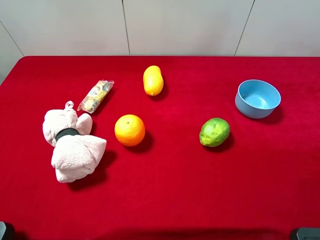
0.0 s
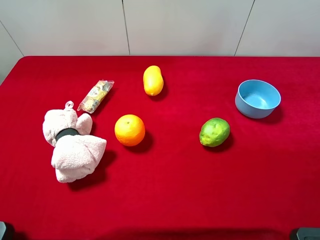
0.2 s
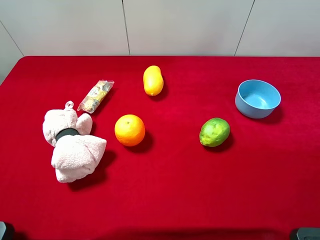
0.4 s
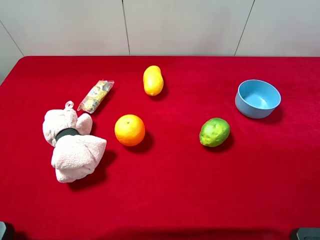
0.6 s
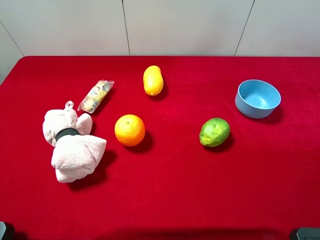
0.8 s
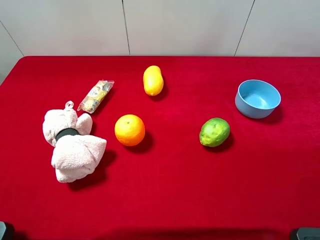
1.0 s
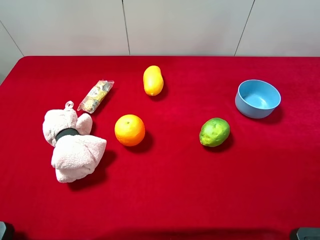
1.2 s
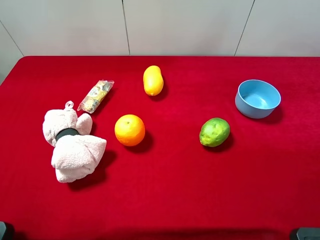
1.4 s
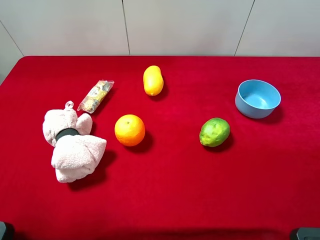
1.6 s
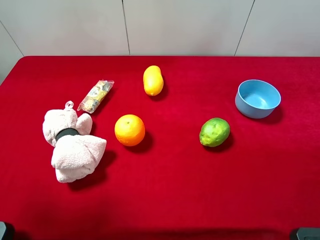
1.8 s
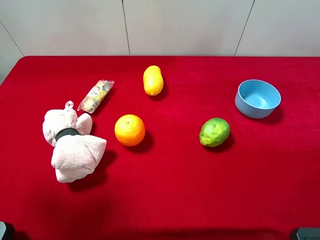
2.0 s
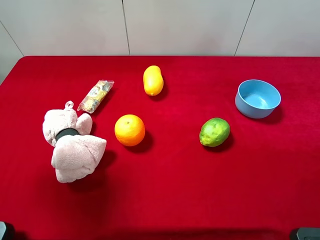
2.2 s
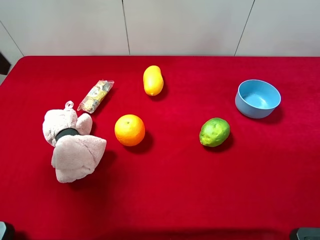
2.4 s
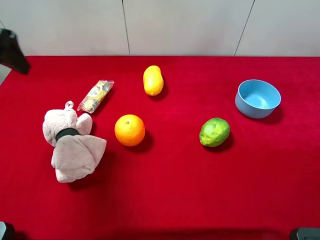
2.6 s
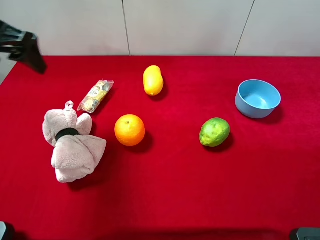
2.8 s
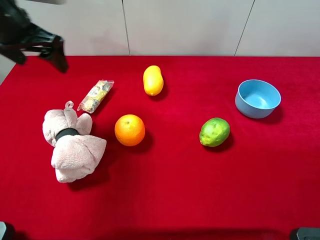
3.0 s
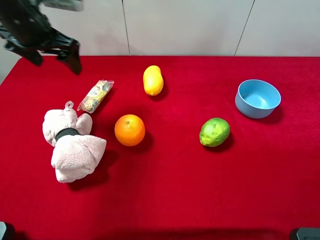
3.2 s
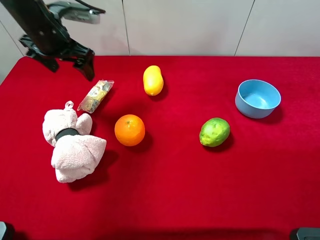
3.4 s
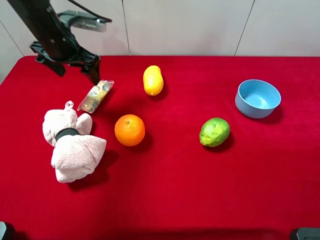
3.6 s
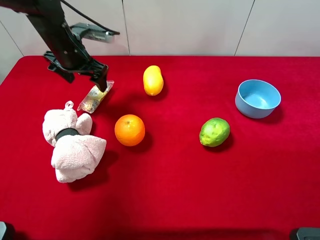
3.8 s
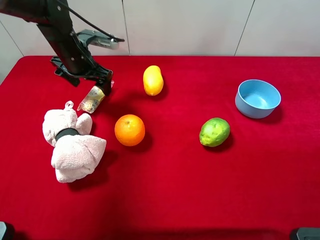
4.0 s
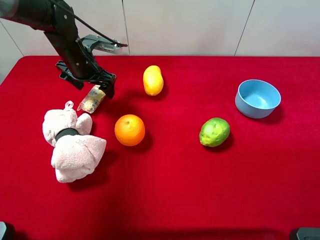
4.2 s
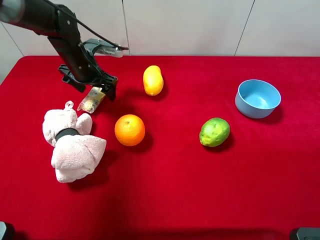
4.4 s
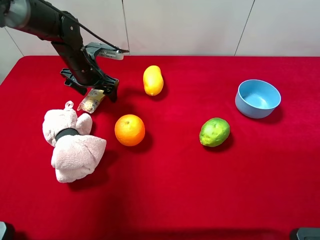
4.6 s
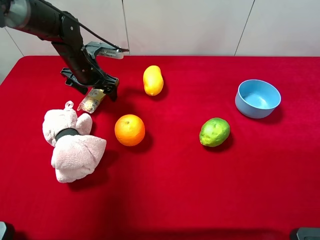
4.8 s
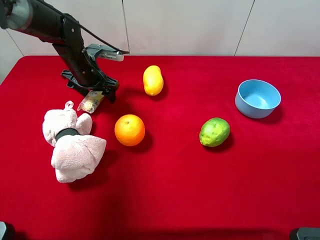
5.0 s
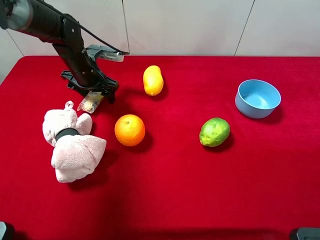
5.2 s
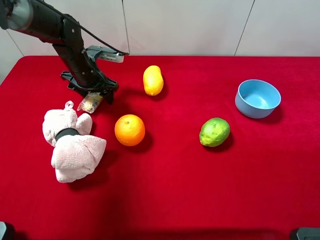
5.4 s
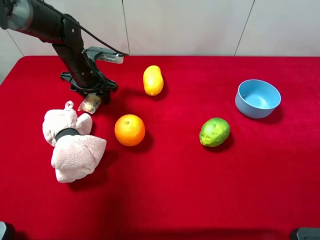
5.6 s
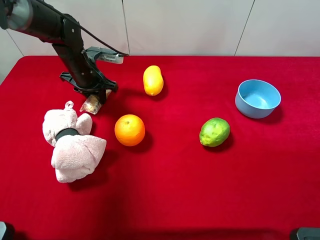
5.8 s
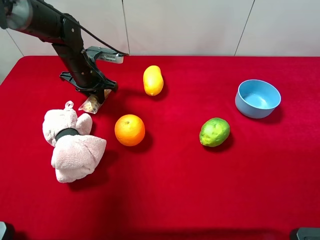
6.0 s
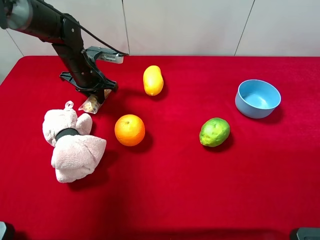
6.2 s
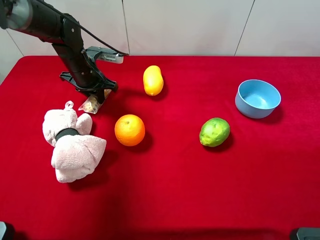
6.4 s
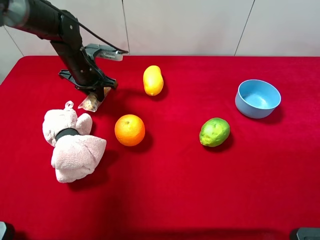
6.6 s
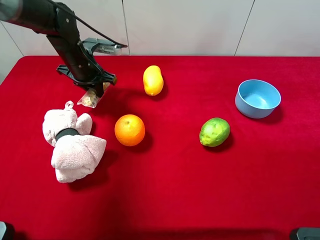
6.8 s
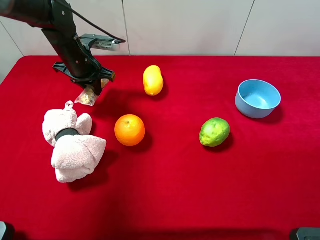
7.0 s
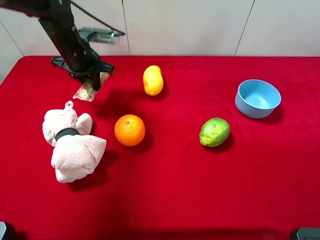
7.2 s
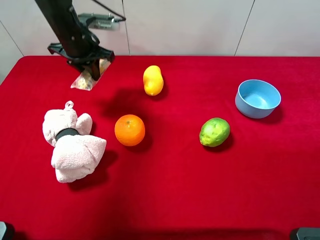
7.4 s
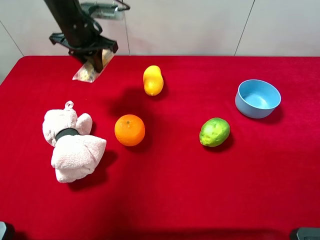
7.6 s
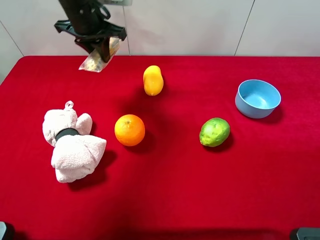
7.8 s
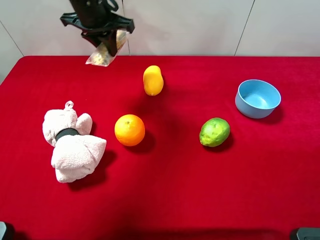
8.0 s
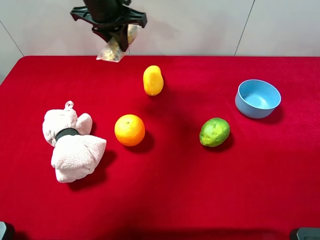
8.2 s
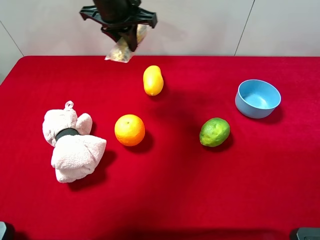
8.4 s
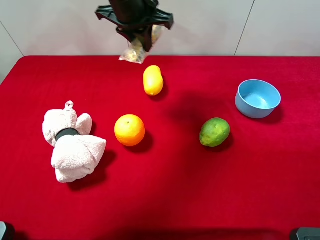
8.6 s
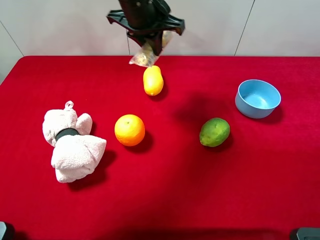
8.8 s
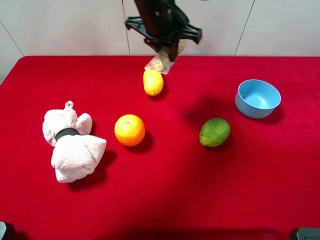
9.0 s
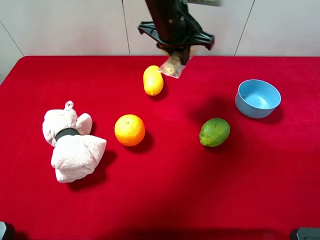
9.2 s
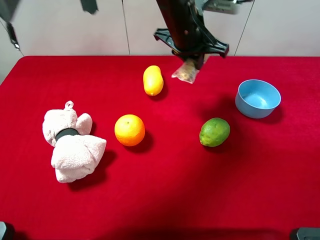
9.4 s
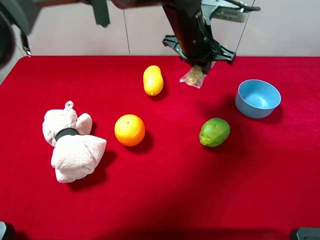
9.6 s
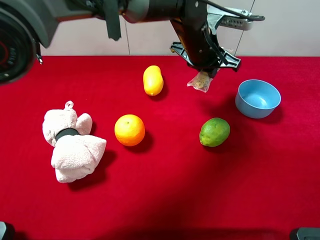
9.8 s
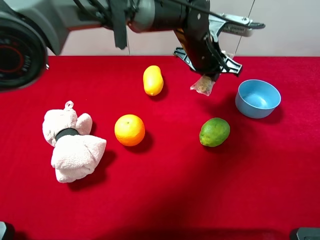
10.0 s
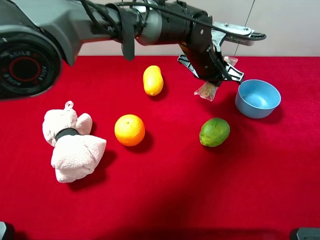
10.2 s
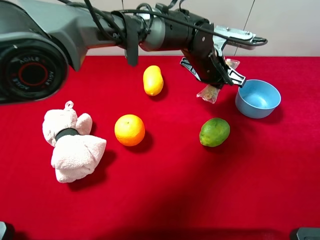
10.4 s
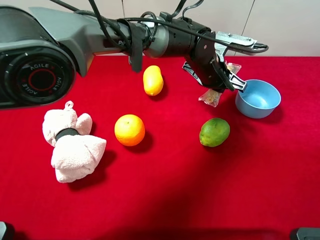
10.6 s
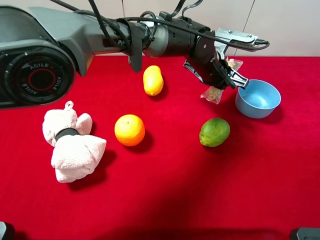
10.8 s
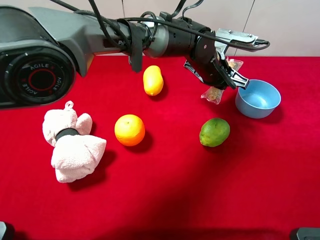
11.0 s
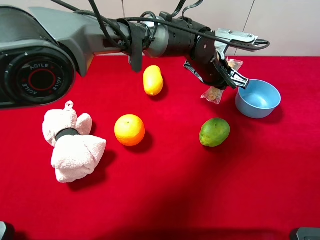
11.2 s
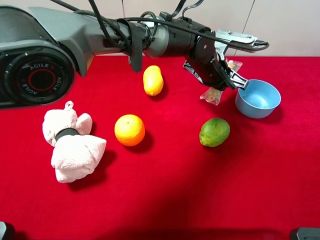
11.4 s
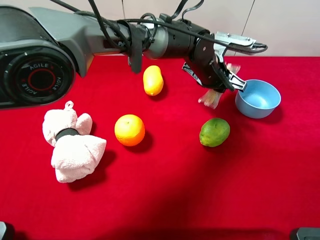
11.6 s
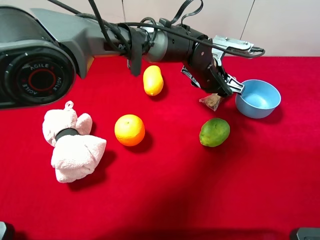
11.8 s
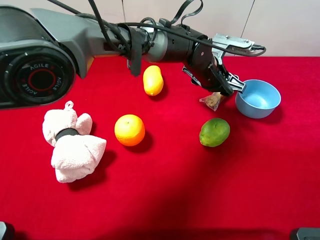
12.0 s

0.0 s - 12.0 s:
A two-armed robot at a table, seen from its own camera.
Task of the whole recording: the gripper move the object.
Step, 0.0 s - 5.8 s: Grasp the chocolate with the left gripper.
1.6 s - 3.0 s: The left gripper heads forward, covering roughly 25 cm.
3.0 s - 4.4 s: The left gripper is displaced downward, forward and to the right by some 15 cm.
4.4 s - 6.0 s: The left gripper closes its fingers.
6.0 s - 7.6 s: The left gripper travels upward by about 10 cm.
7.6 s - 9.0 s: The left gripper goes about 15 cm to the right.
9.0 s - 10.4 s: The left gripper travels downward and to the right by approximately 15 cm.
10.4 s - 12.0 s: The left gripper opens its fingers.

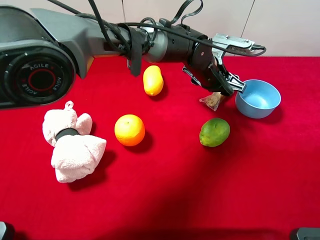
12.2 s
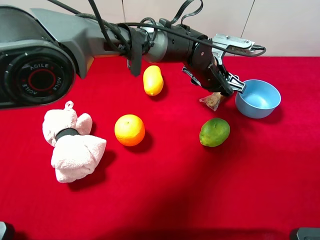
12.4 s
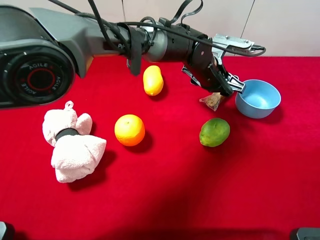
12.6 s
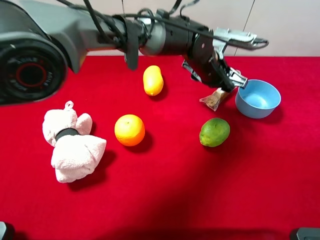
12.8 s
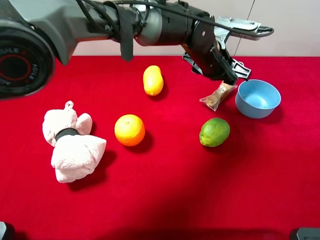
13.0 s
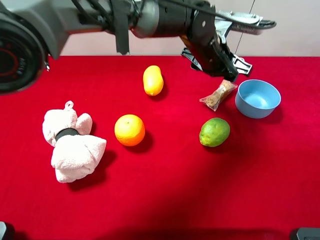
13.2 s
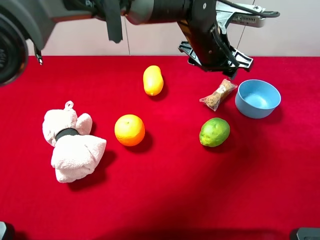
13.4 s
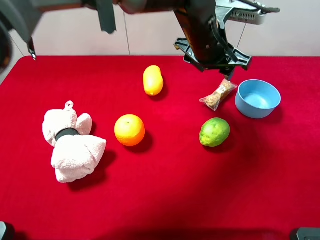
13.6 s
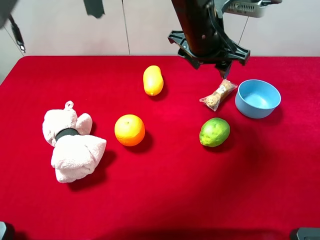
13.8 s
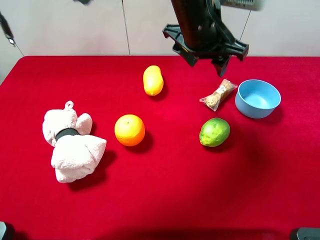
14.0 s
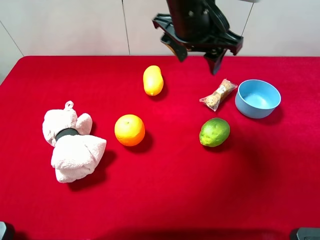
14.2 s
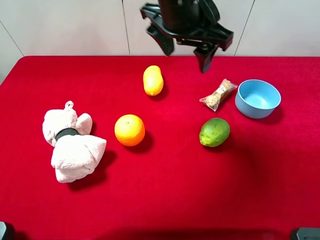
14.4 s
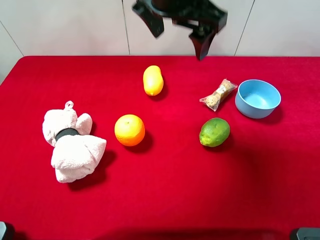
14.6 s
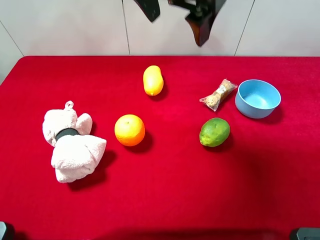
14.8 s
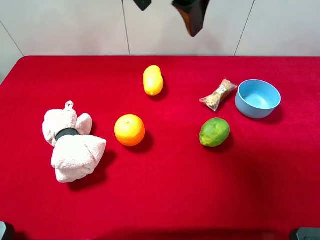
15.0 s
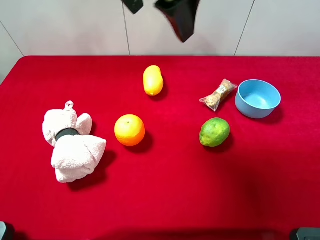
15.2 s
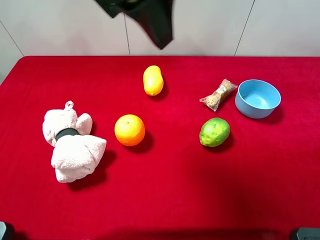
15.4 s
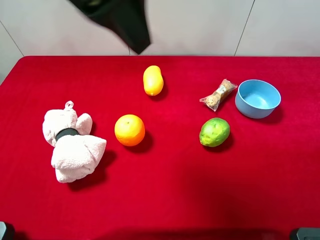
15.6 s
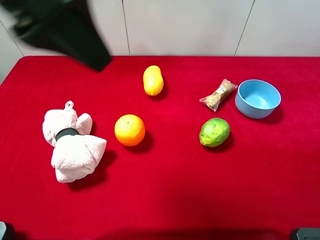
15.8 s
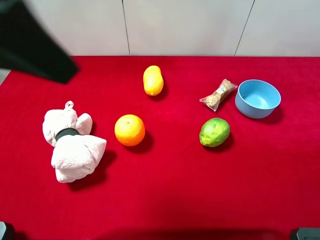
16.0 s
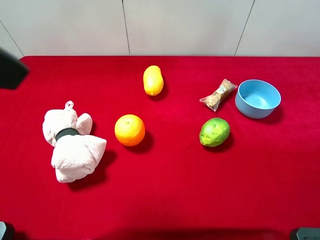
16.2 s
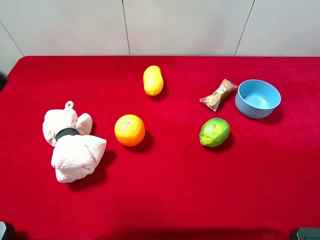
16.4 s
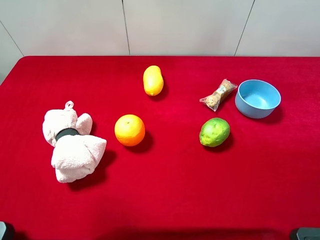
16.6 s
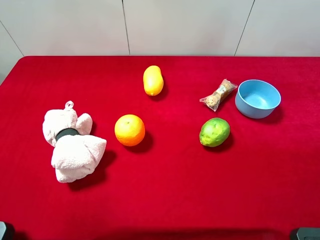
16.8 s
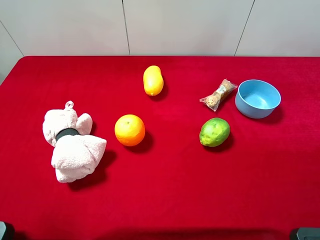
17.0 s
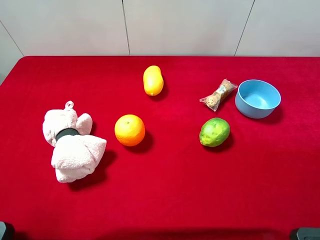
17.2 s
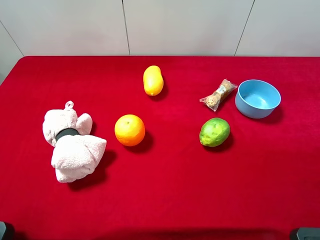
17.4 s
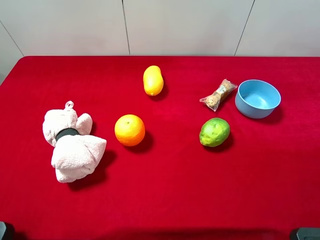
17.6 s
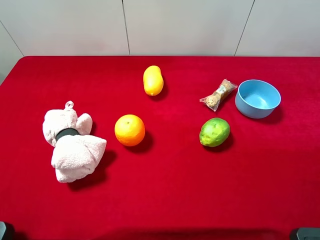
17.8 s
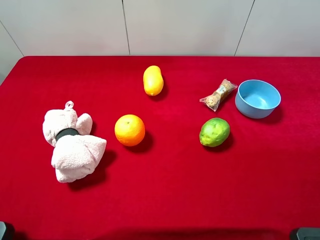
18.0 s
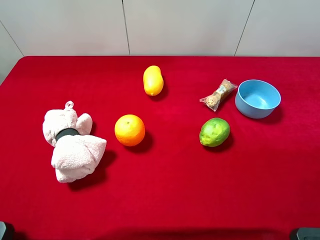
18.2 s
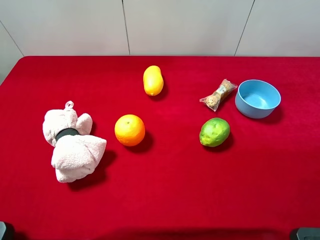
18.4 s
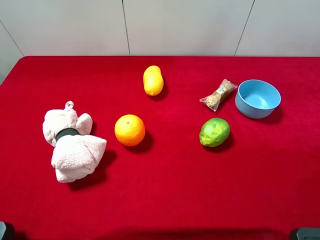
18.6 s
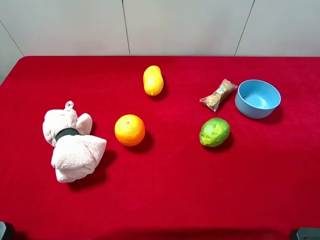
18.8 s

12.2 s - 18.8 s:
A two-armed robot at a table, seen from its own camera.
Task of the whole recording: the gripper move the object.
12.2 s - 13.8 s: The left gripper shifts roughly 10 cm upward.
13.8 s - 15.4 s: The left gripper travels upward, to the left and backward by about 25 cm, and opens its fingers.
15.4 s - 17.2 s: The left gripper heads to the left and backward, covering roughly 30 cm.

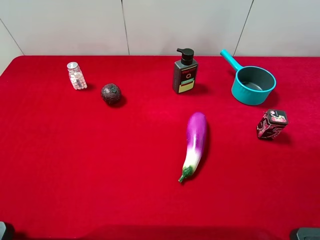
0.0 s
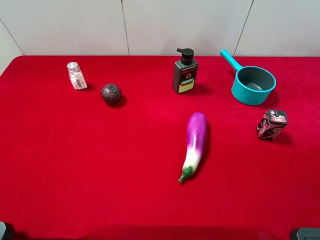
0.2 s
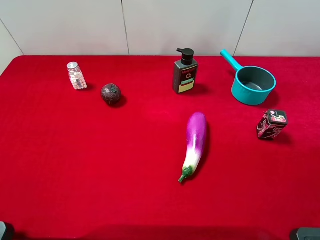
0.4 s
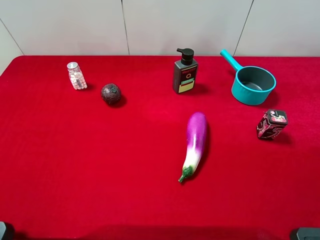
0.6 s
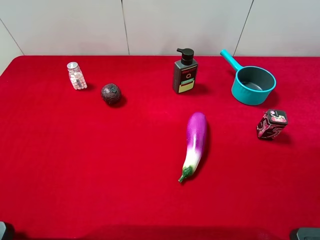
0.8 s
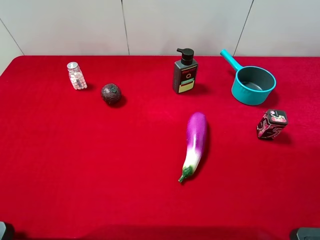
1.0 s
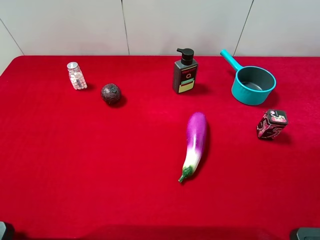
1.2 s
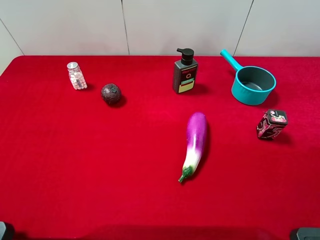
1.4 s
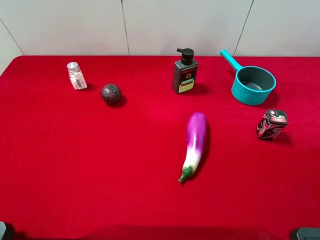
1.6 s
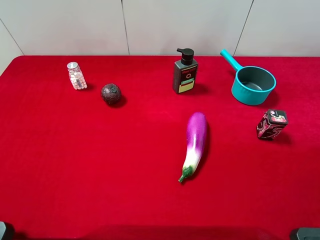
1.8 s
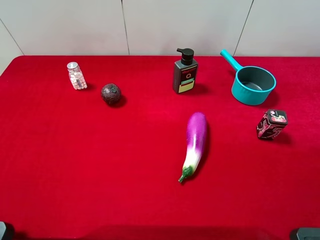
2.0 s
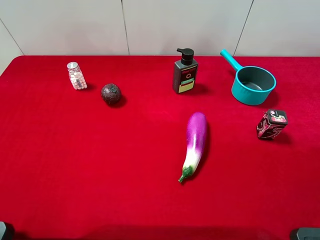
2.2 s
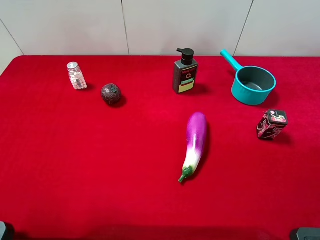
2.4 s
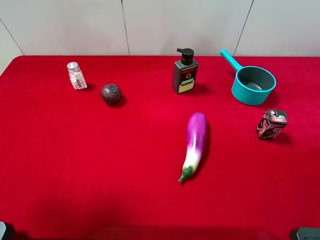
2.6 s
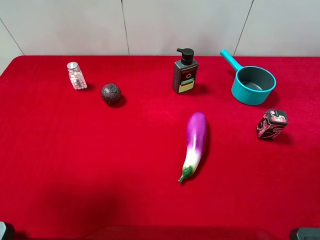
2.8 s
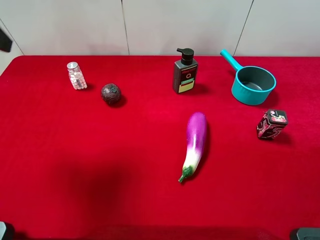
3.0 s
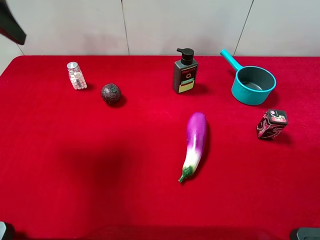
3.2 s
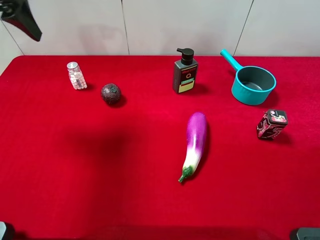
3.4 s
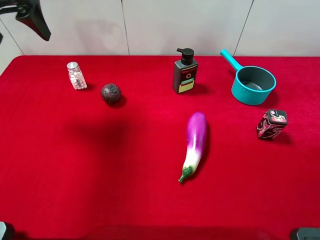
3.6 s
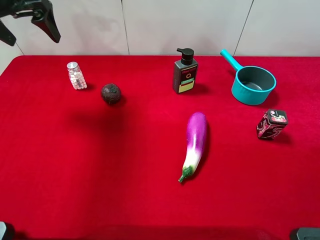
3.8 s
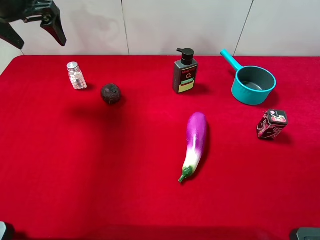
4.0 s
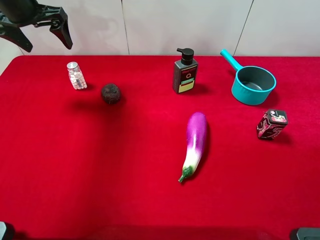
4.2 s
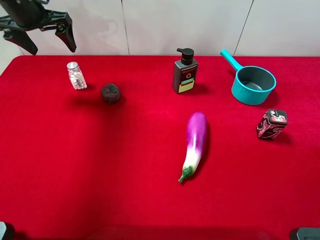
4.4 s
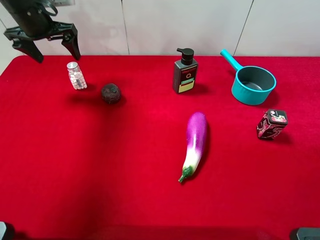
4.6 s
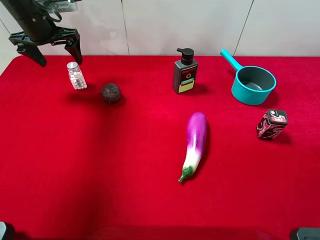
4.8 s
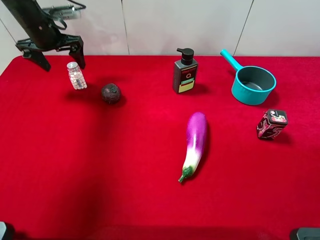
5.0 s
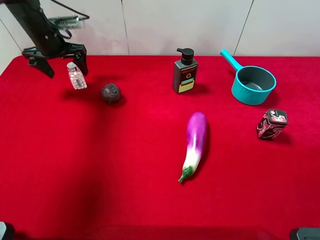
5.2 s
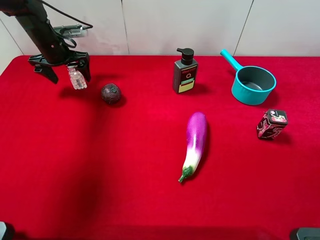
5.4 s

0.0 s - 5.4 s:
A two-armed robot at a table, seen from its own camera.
Task of the whole recording: the gripper move the object.
0.0 s - 1.4 s: The two grippers keep their place.
1.4 s - 2.8 s: The left gripper travels forward and upward by about 20 cm.
2.8 s - 4.0 s: The left gripper is displaced forward by approximately 20 cm.
4.0 s - 5.4 s: The left gripper heads downward and forward, covering roughly 15 cm.
